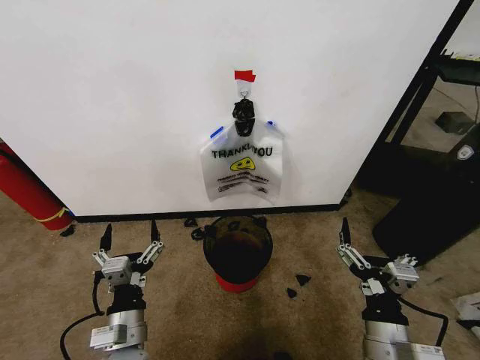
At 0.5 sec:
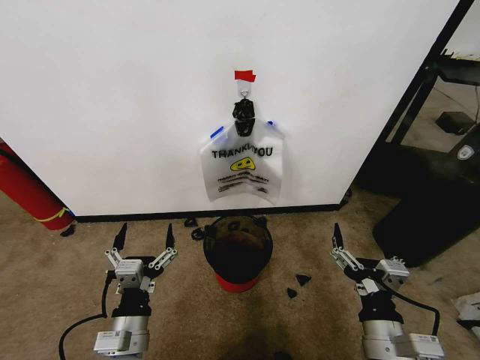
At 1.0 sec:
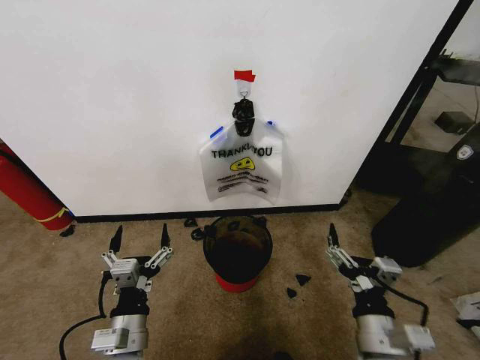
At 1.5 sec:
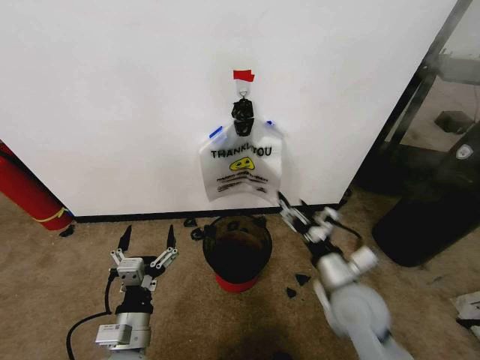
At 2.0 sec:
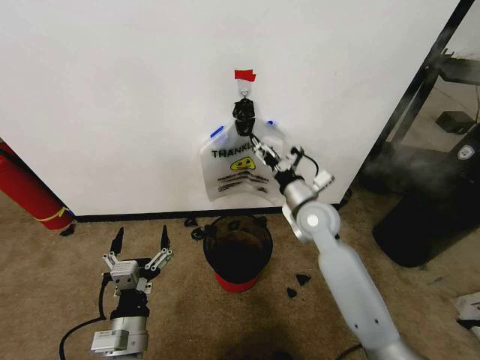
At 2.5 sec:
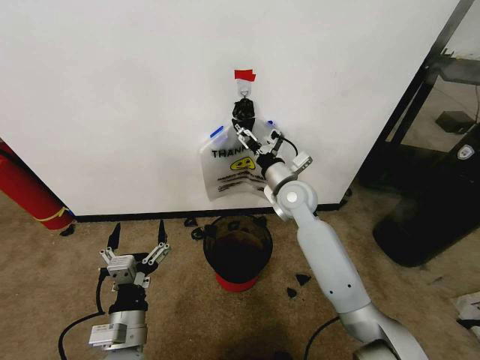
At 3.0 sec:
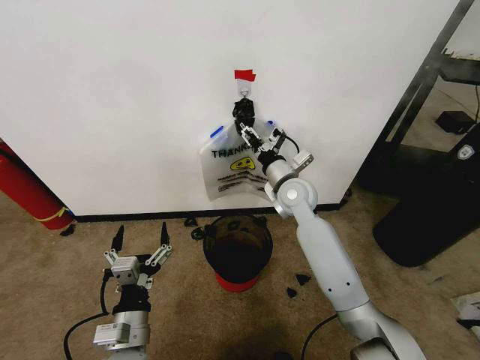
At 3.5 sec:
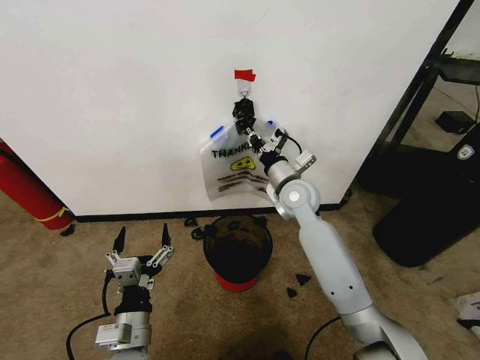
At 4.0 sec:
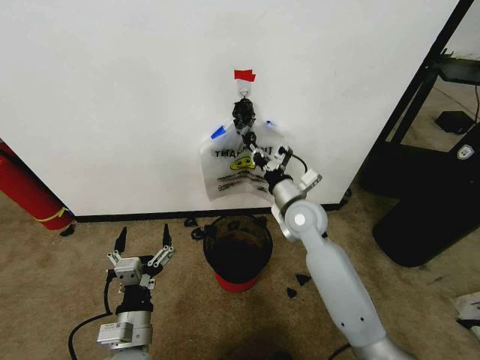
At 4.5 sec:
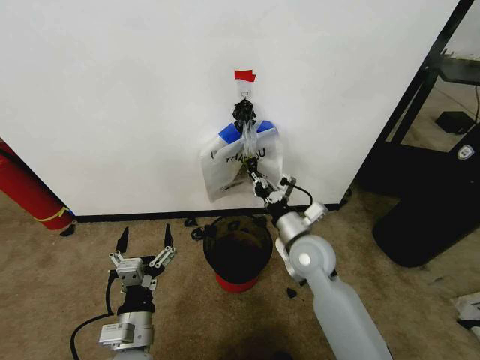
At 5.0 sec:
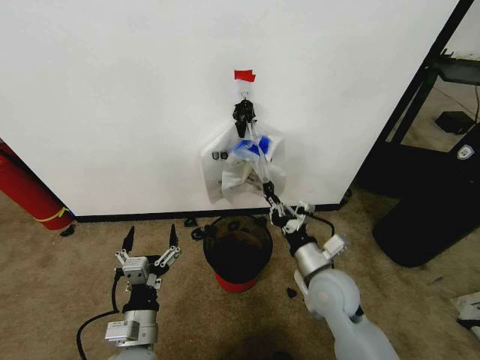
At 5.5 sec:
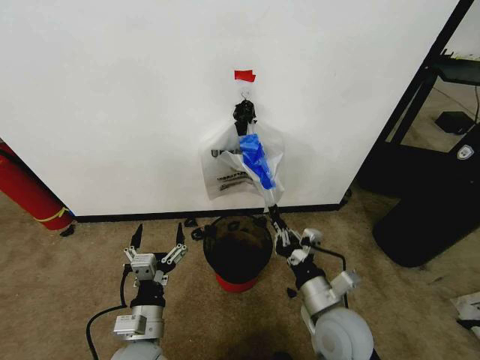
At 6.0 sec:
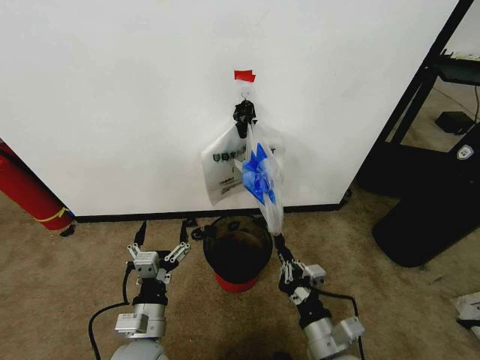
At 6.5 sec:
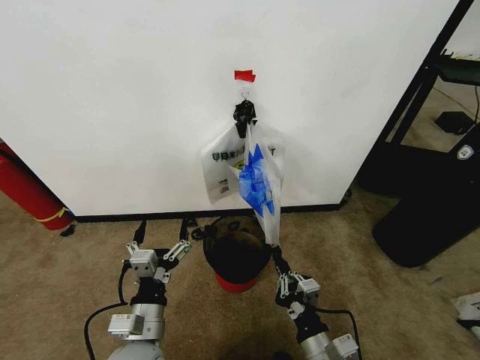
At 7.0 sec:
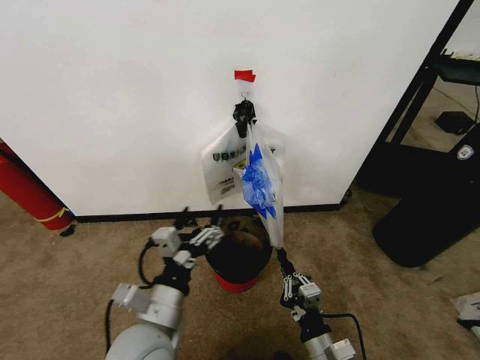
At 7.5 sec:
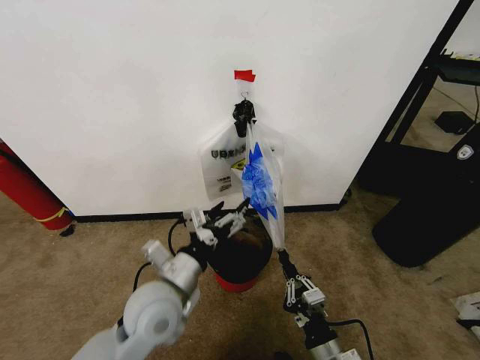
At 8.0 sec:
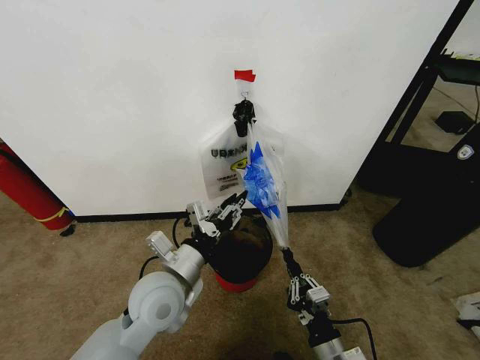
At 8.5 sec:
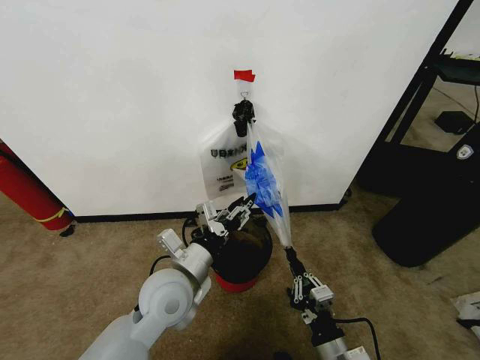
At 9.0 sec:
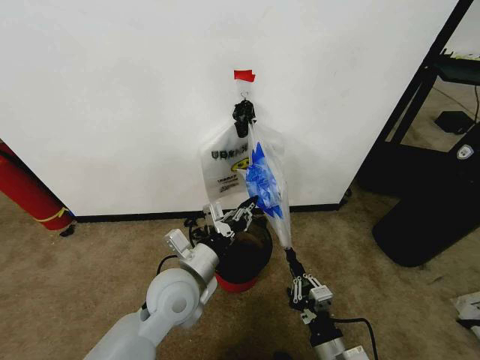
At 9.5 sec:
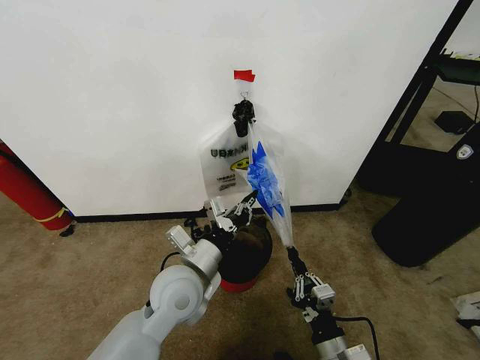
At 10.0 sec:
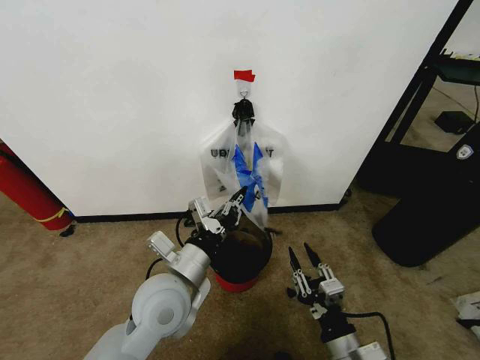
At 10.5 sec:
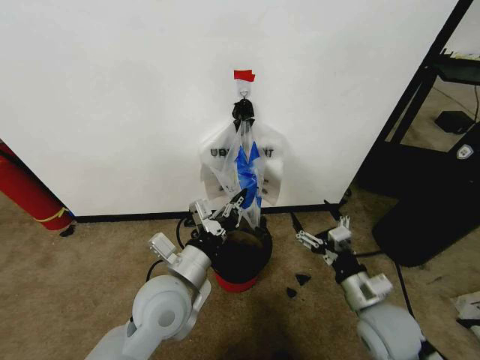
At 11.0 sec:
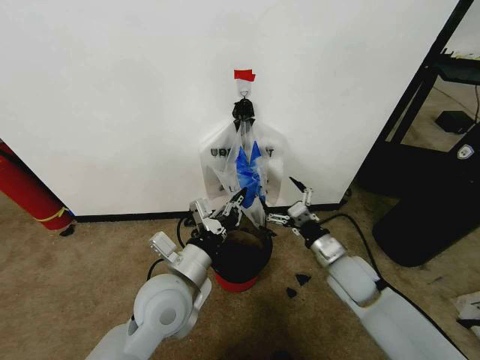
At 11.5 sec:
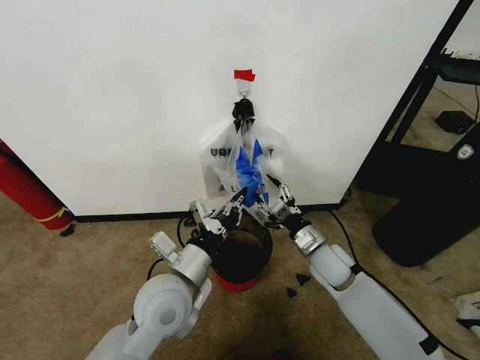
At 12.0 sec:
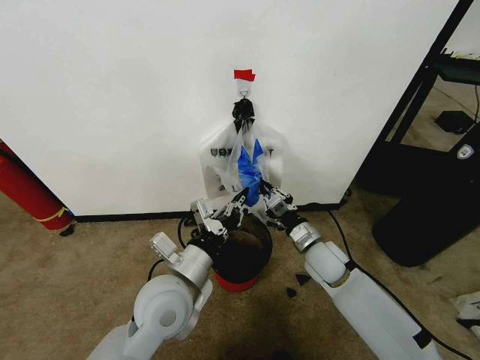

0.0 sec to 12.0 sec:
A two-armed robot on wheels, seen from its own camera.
Task of the whole recording: Pick up the garbage bag from the wall and place it over the trash bin.
2.0 sec to 4.0 sec: The right gripper closes.
4.0 sec to 6.0 sec: The right gripper heads backward, covering some 30 cm.
6.0 sec to 8.0 sec: The left gripper goes roughly 10 cm upward and forward, and closes up.
8.0 sec to 10.0 sec: The left gripper closes its fingers. Meanwhile the right gripper opens.
10.0 sec to 12.0 sec: The right gripper moves forward, approximately 25 cm, and opens, then closes once more.

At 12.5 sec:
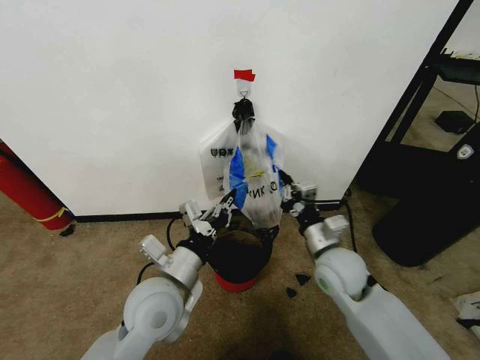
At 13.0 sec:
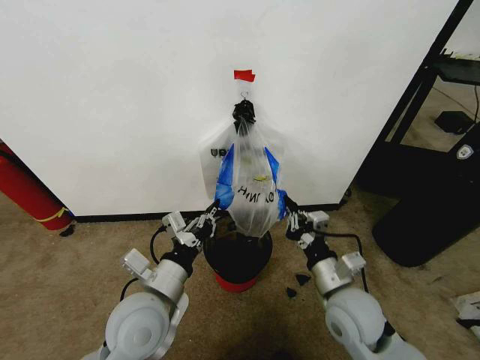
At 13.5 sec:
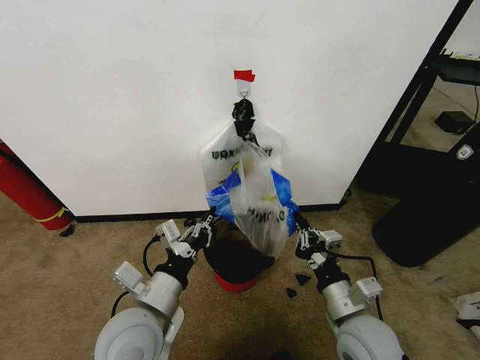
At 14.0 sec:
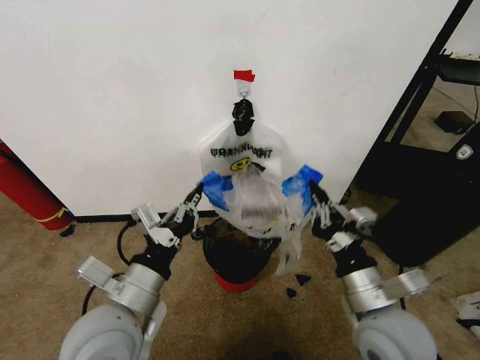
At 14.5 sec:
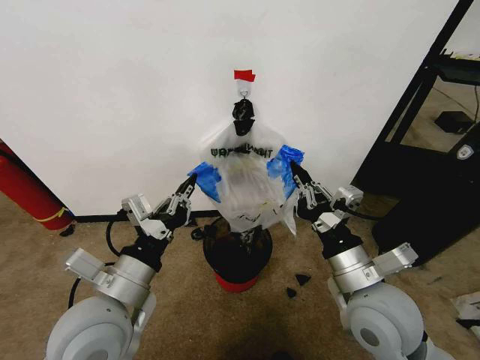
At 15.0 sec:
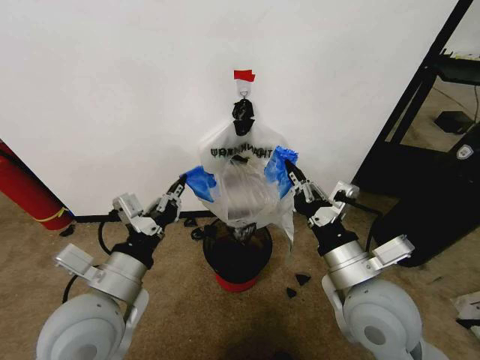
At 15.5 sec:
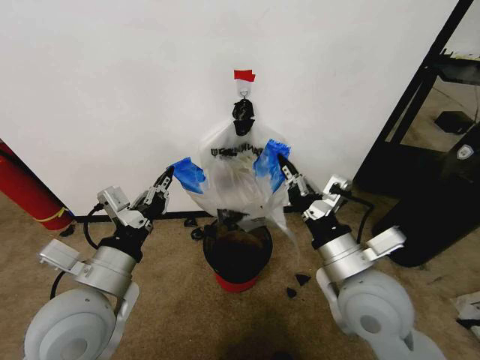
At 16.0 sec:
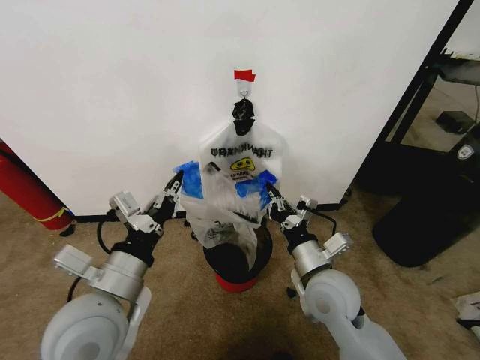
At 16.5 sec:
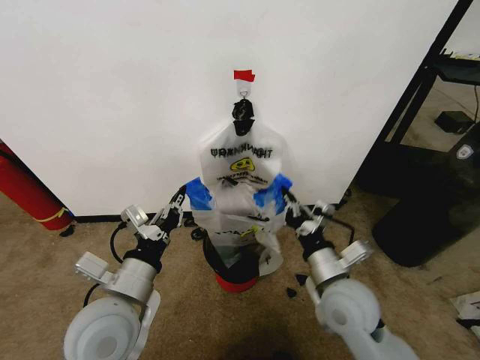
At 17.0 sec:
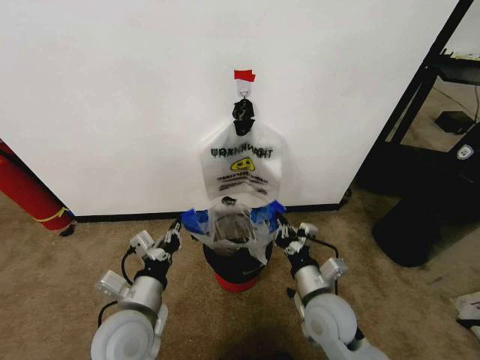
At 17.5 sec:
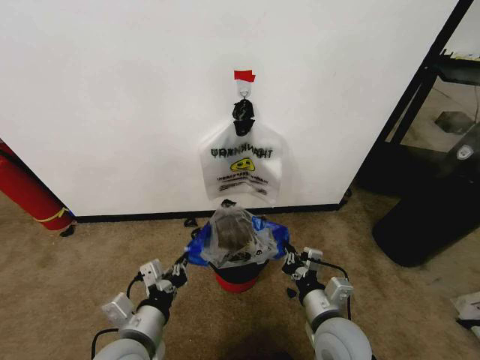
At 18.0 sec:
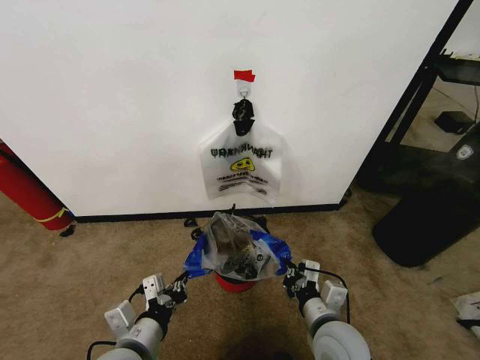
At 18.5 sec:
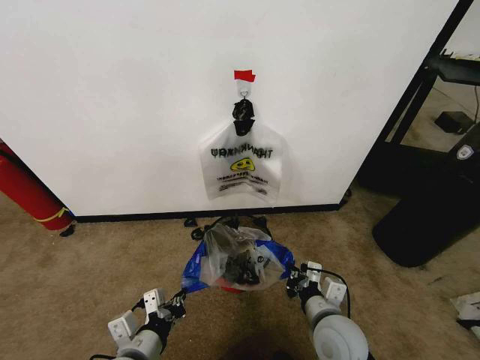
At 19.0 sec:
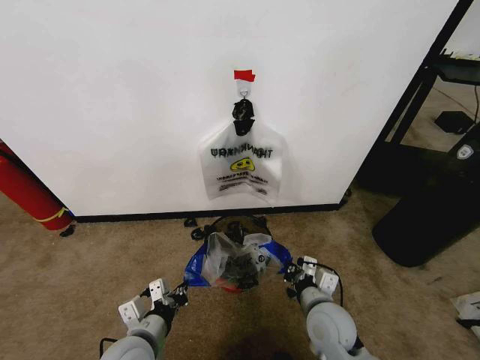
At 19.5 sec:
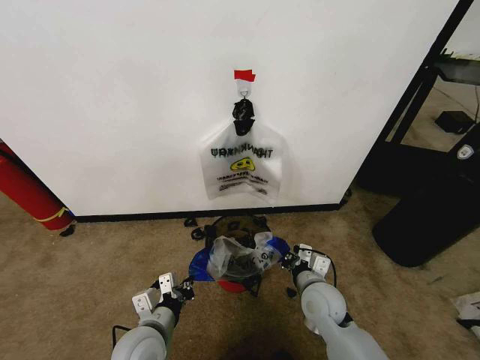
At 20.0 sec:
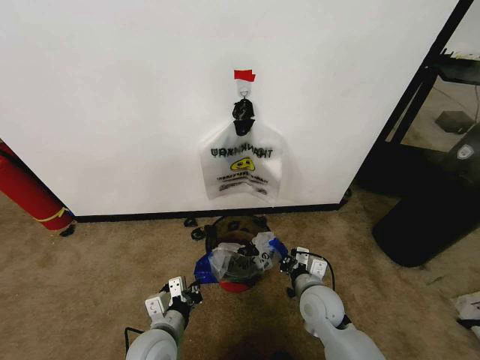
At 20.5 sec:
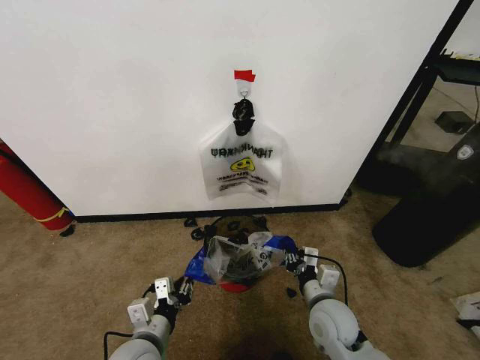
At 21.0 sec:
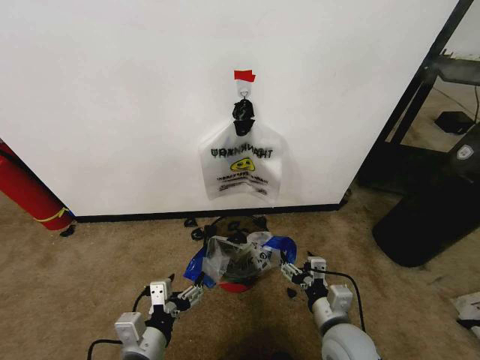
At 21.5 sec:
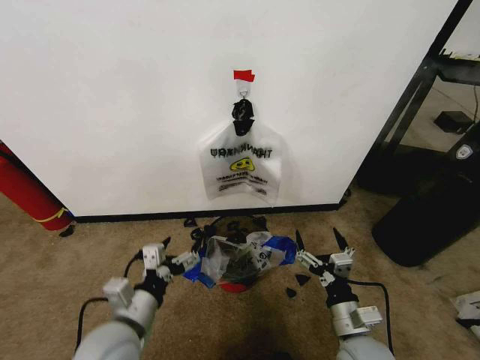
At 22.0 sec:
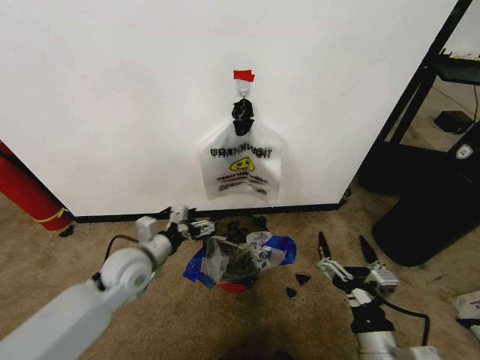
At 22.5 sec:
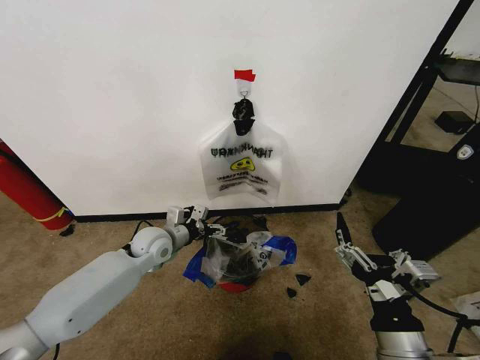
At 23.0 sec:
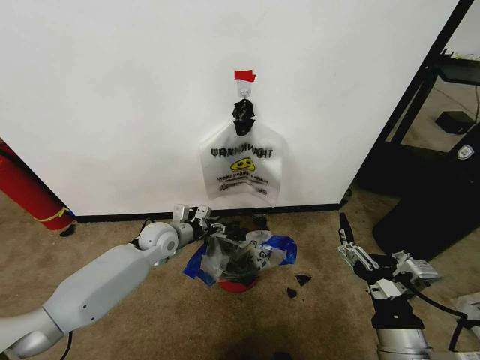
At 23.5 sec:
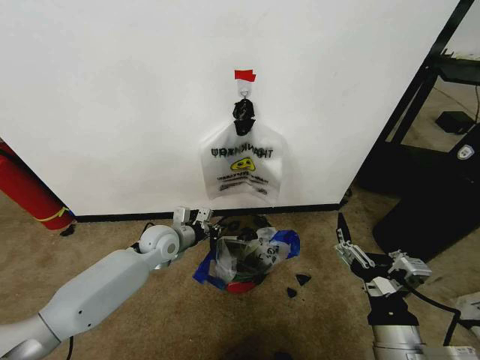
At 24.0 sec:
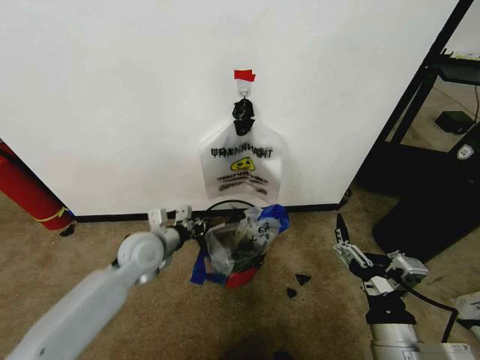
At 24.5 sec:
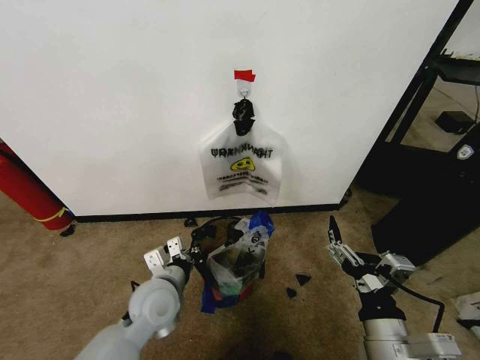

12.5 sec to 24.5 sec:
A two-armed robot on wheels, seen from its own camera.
Task of the whole recording: Pick up the garbage bag from the wall and place it over the trash bin.
12.5 sec to 14.5 sec: The right gripper travels backward and upward by roughly 15 cm. Meanwhile the left gripper goes some 10 cm upward, backward and to the left.
14.5 sec to 16.5 sec: The right gripper heads downward, covering roughly 5 cm.
16.5 sec to 18.5 sec: The left gripper travels downward and backward by some 15 cm. The right gripper travels downward by roughly 10 cm.
20.5 sec to 22.5 sec: The right gripper shifts some 20 cm backward and upward, and opens. The left gripper is displaced forward by about 25 cm, and opens.
22.5 sec to 24.5 sec: The left gripper shifts roughly 15 cm backward, and closes.

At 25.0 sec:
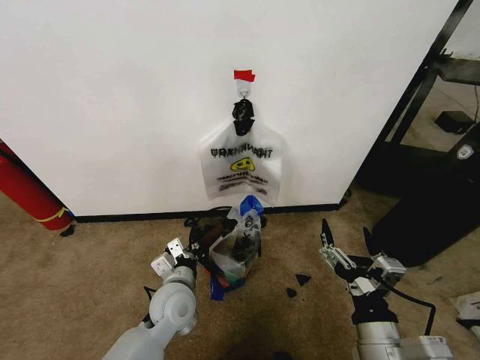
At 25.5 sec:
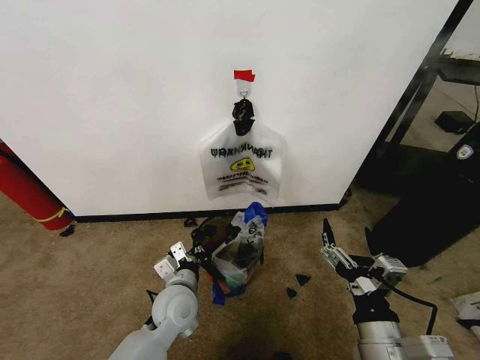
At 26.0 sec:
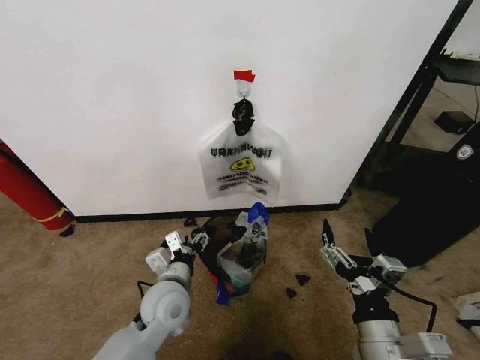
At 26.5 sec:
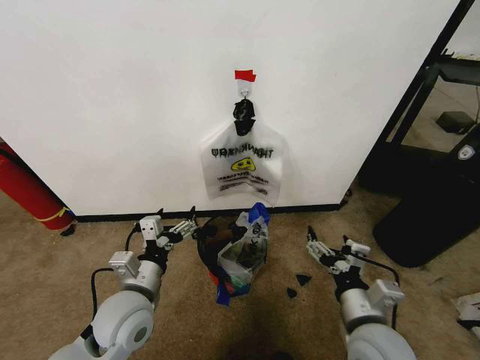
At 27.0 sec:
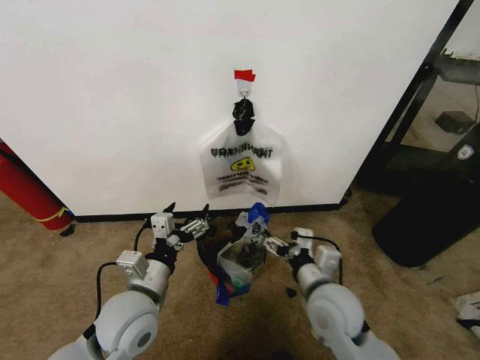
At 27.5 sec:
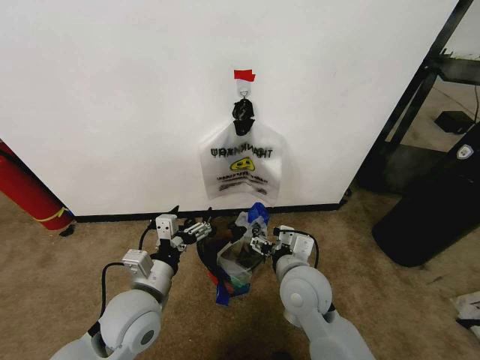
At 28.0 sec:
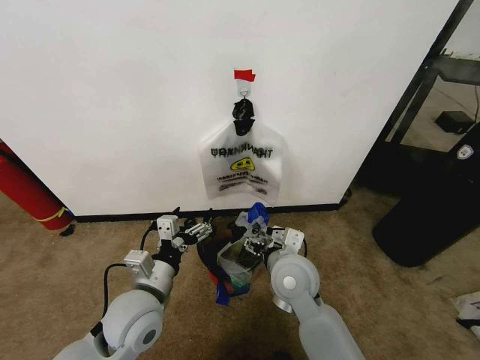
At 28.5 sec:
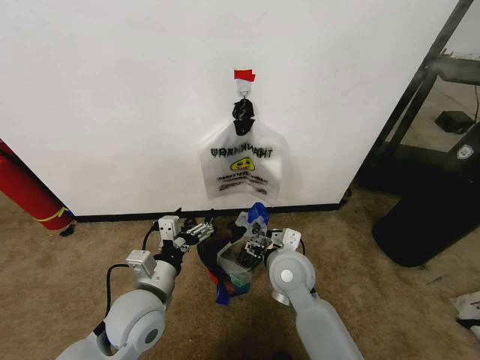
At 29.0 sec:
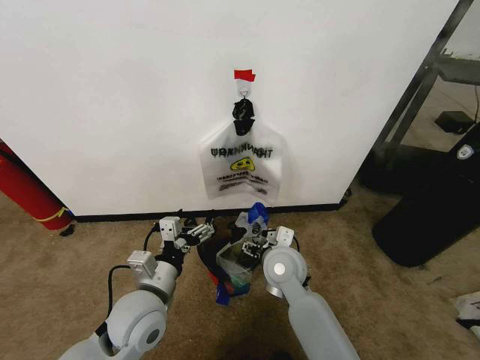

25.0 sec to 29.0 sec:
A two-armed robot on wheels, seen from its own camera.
Task of the whole recording: Pick up the garbage bag from the wall and place it over the trash bin.
25.0 sec to 27.0 sec: The left gripper moves upward and backward, roughly 10 cm, and opens up, while the right gripper goes roughly 15 cm forward.
27.0 sec to 29.0 sec: The right gripper shifts approximately 10 cm forward and to the left.
